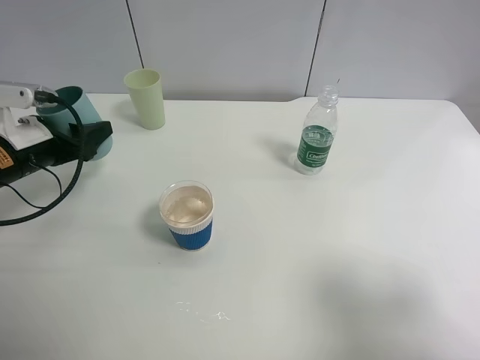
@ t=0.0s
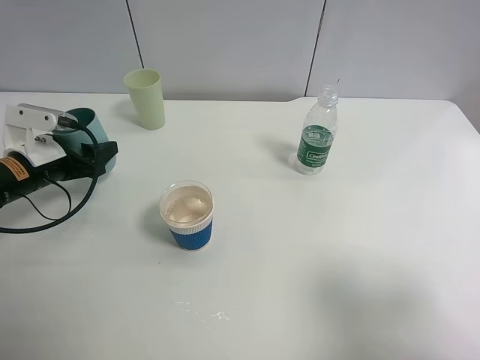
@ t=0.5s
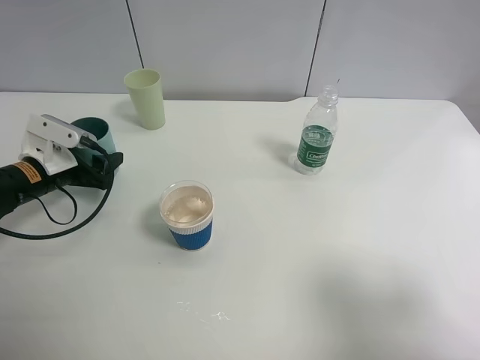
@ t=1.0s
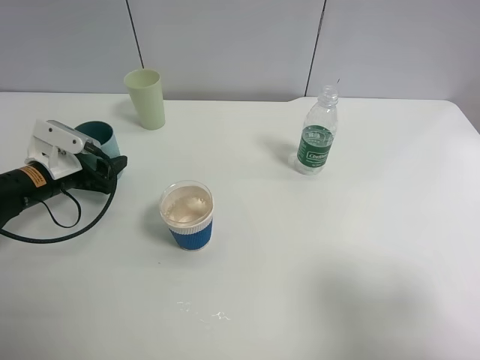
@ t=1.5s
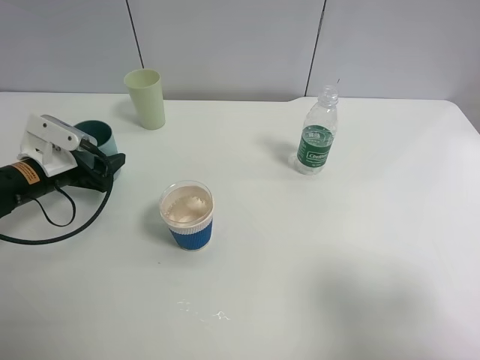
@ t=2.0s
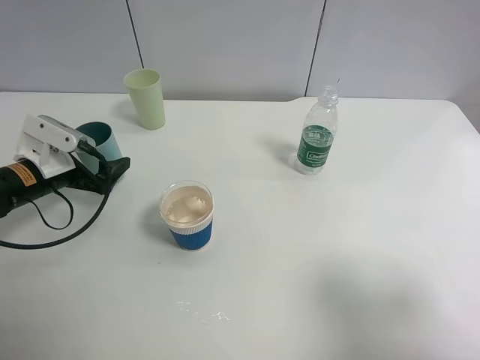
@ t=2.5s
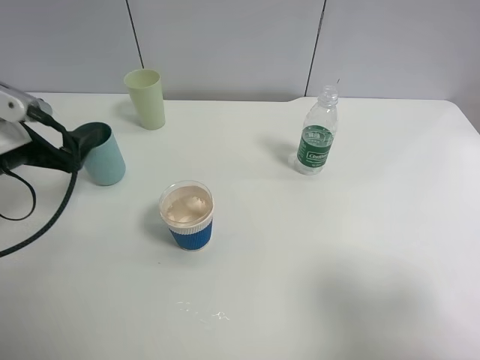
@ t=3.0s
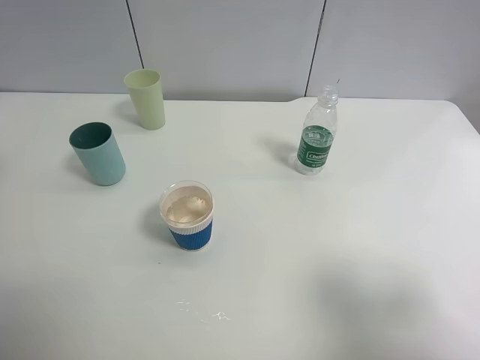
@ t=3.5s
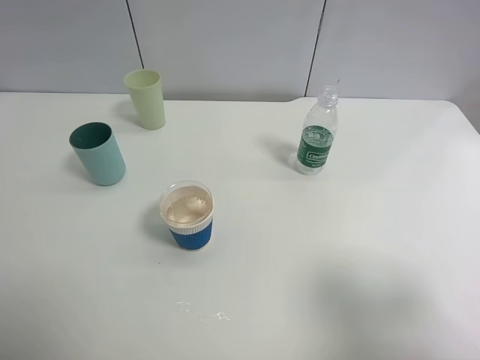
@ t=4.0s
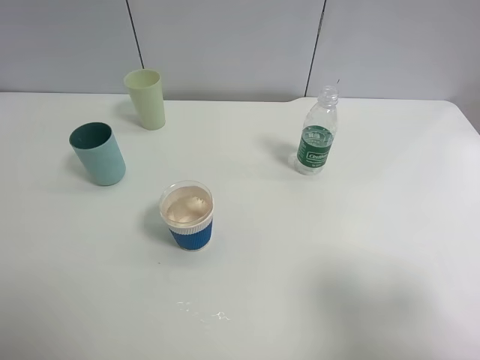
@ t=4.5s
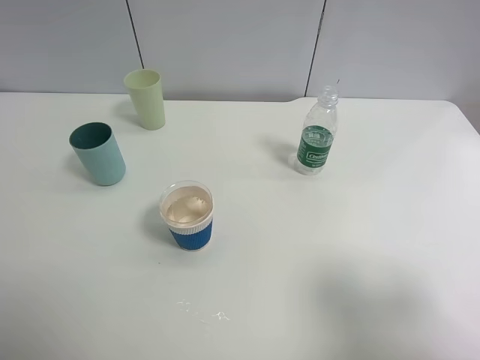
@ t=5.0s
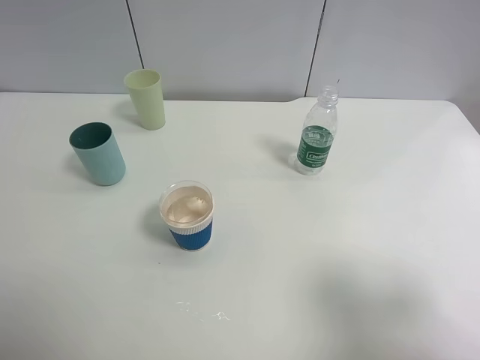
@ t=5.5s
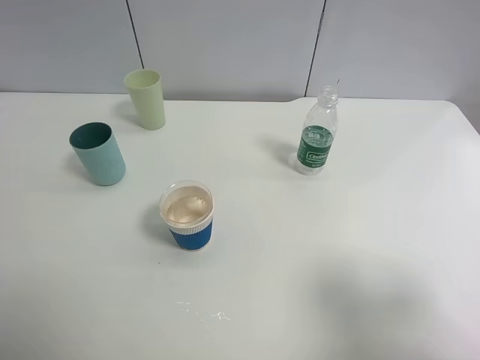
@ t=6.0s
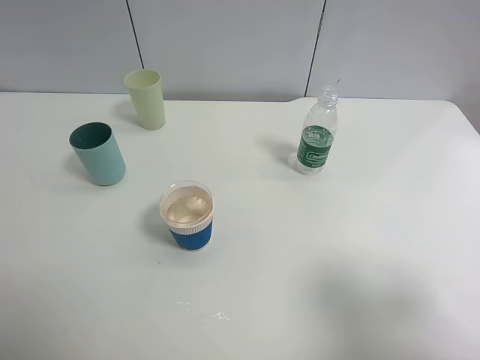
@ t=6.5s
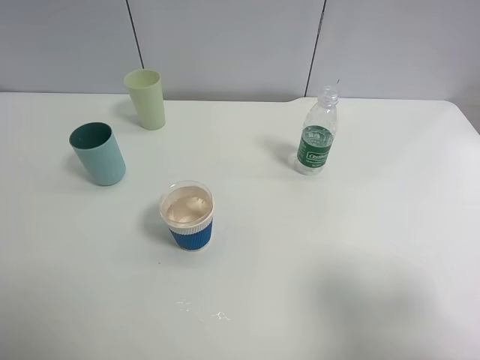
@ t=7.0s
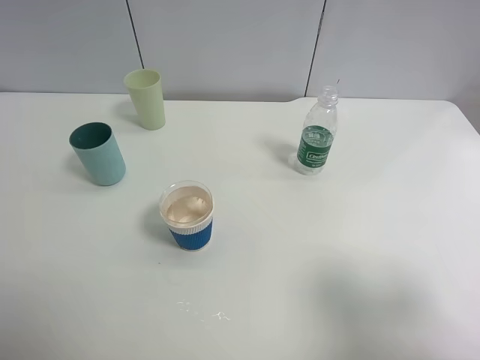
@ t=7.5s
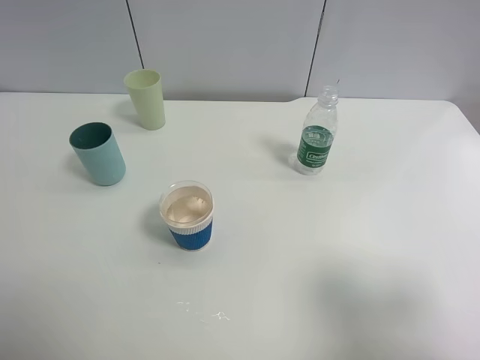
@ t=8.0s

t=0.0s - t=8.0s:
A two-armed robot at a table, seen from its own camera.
Task of the whole recording: use a clamp to hold the bottle of the drink, pour the beverage into a random cup, then clamp the cup containing the drink and pour the drink into another random cup.
Step, t=0.0s - t=2.5s: Place the blue plastic cup on the table with left gripper.
t=0.0s - t=2.0s: The left gripper is displaced downward by some 5 cm.
t=2.0s - t=4.0s: The left gripper is displaced upward and backward by some 35 cm, and opens up.
t=6.0s - t=8.0s: Neither gripper changes place.

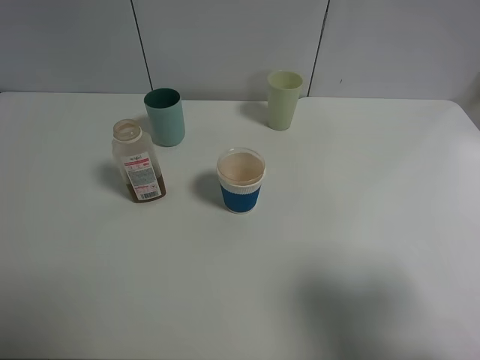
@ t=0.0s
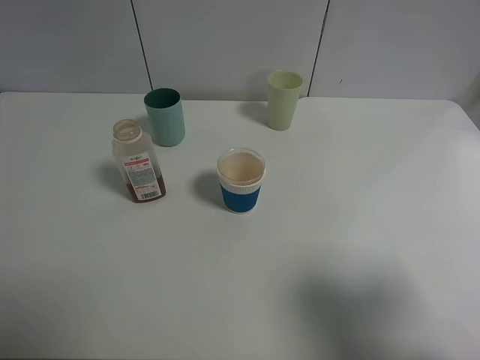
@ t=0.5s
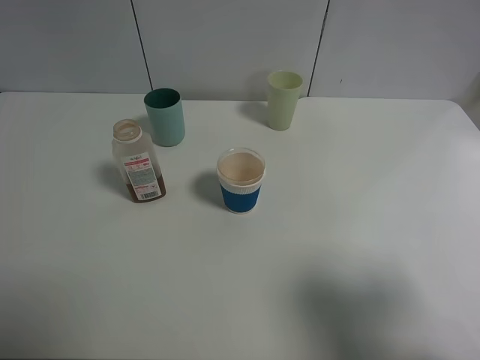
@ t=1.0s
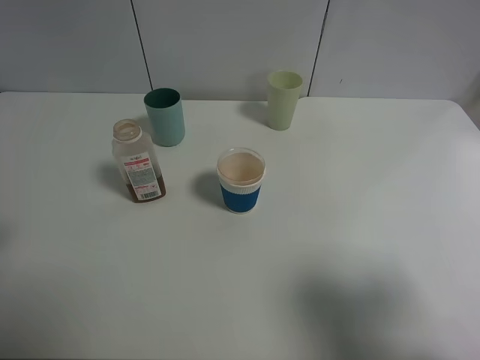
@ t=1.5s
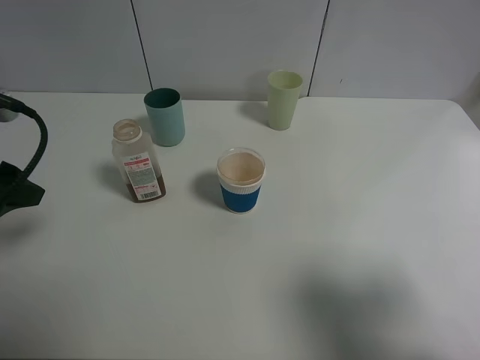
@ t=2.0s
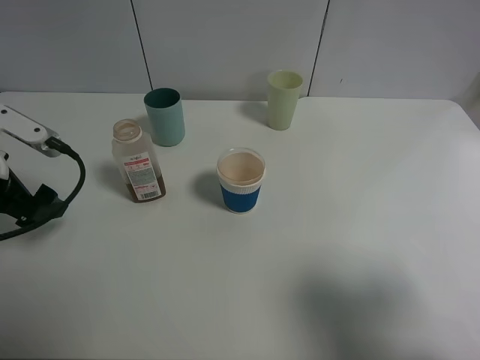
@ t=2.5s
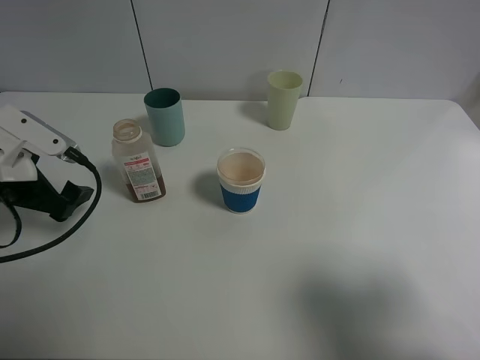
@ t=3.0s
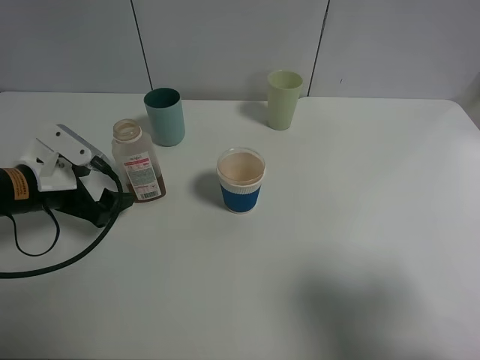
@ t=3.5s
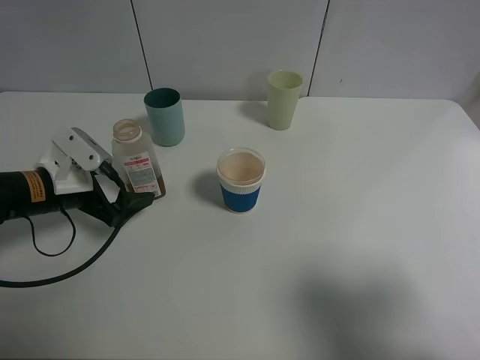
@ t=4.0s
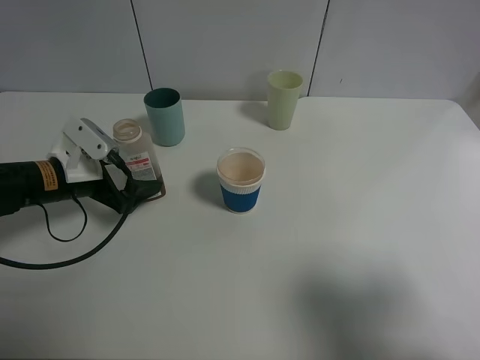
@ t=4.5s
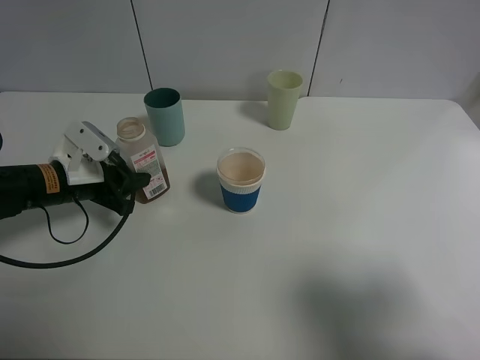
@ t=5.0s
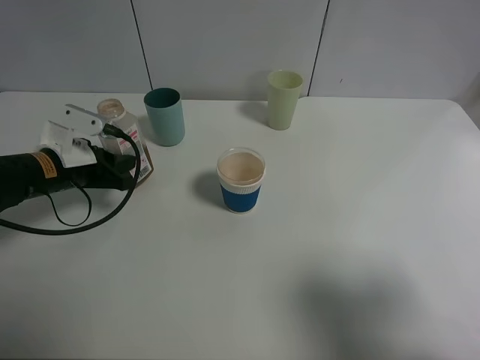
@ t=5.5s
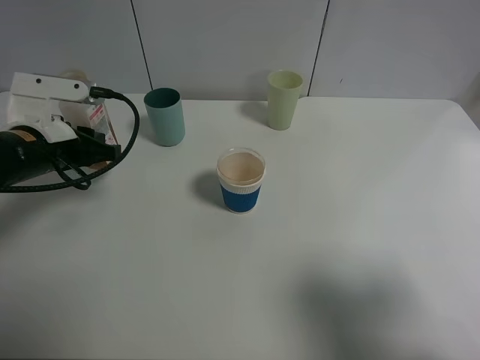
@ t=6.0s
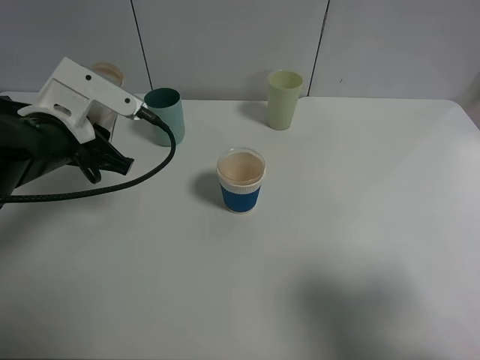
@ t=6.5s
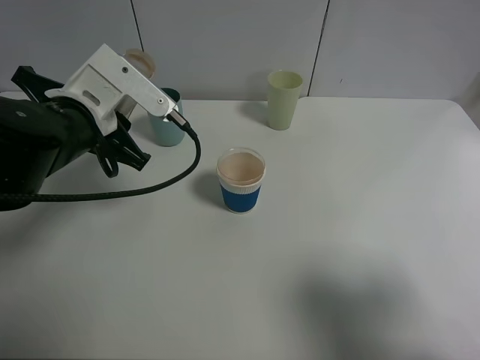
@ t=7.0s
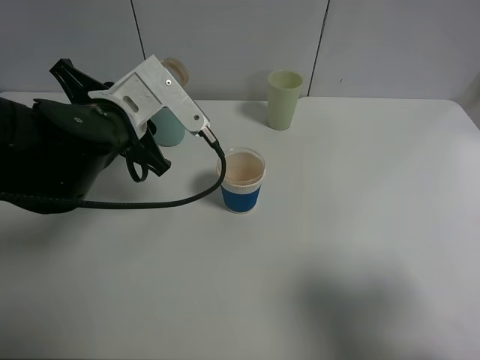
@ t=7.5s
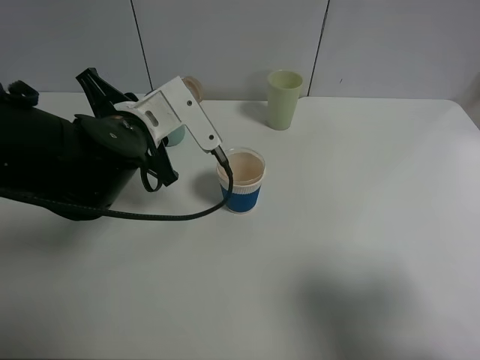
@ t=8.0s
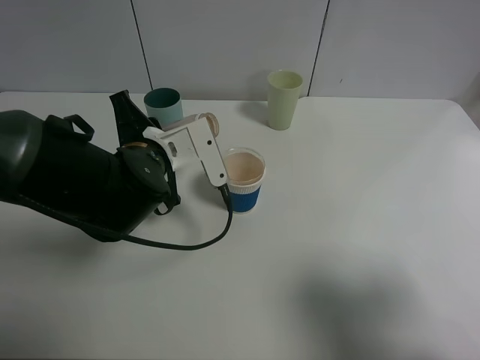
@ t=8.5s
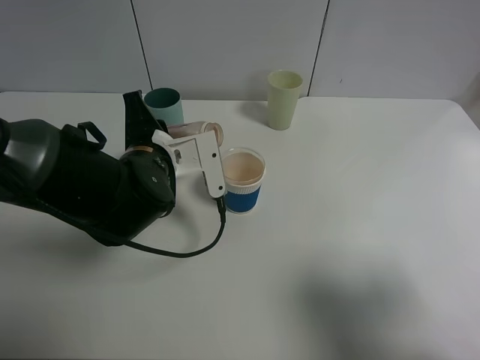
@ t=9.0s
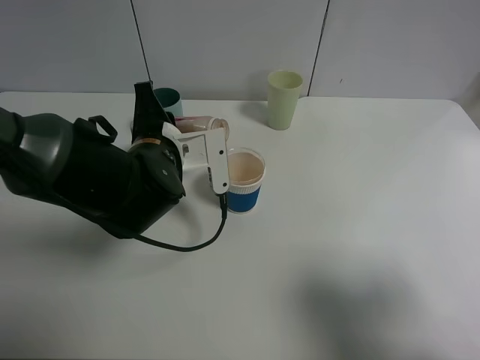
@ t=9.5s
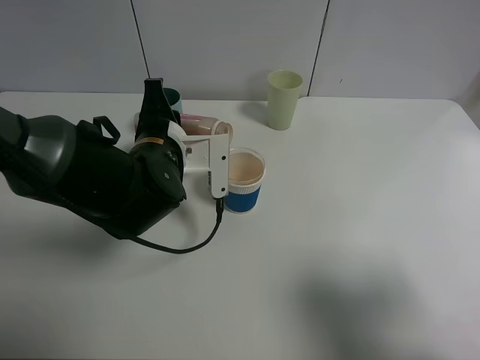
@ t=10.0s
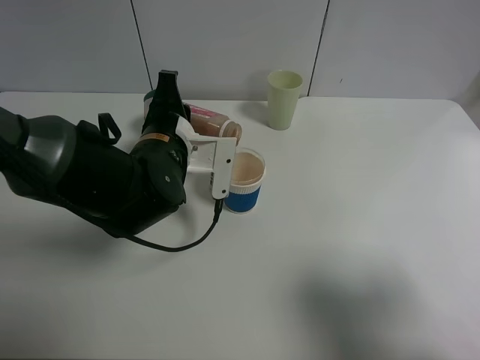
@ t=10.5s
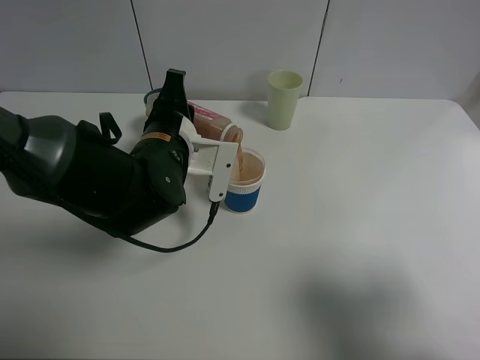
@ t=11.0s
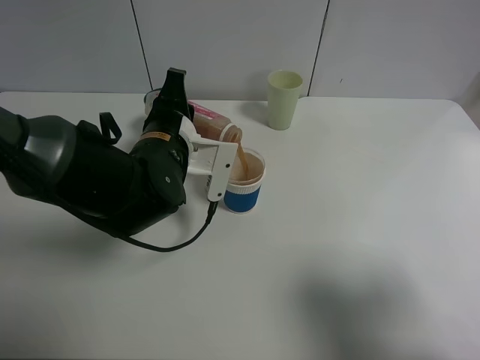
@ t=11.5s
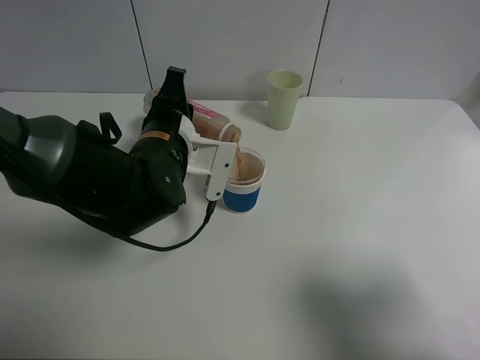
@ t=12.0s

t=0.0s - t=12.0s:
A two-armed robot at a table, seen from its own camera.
Task of the whole recording: use a clamp to hold the bottle of the drink, pour the beverage into a random cup, then clamp the cup containing the drink and pour the drink into another random cup.
t=0.0s - t=2.0s: The left gripper goes about 15 cm forward.
t=2.0s - t=4.0s: The left gripper is displaced downward and forward by about 15 cm.
t=4.0s - t=6.0s: The left gripper shifts approximately 5 cm upward, and closes.
t=6.0s - t=8.0s: The left gripper moves to the right, roughly 10 cm.
t=10.0s - t=12.0s: The grippers stay close to where they were, moving slightly.

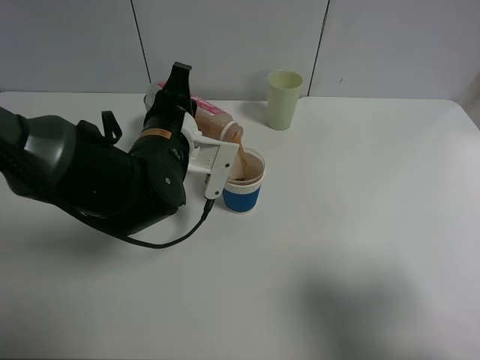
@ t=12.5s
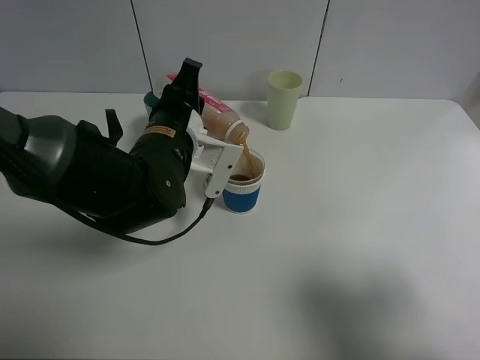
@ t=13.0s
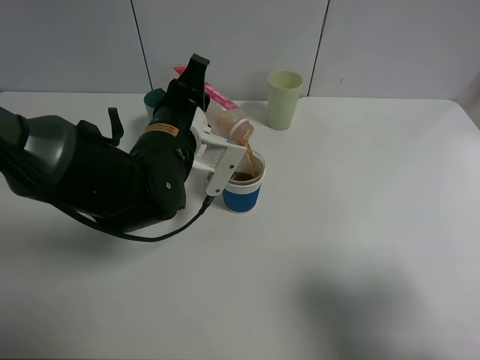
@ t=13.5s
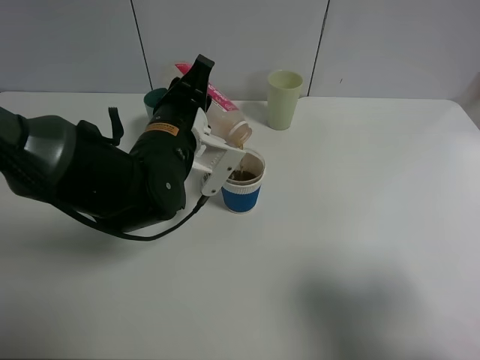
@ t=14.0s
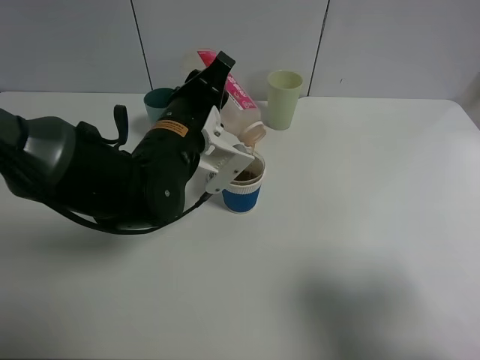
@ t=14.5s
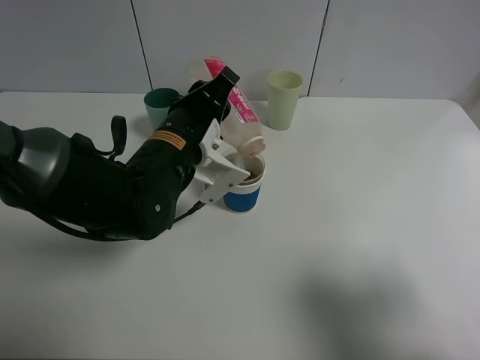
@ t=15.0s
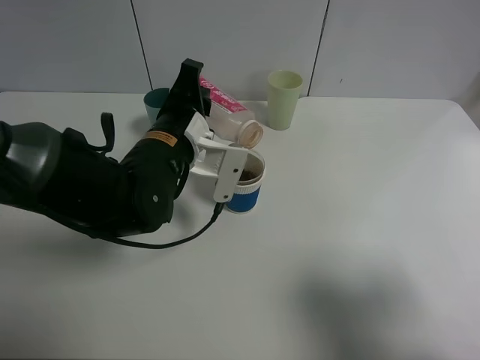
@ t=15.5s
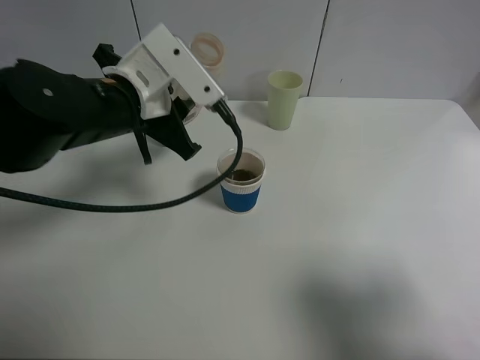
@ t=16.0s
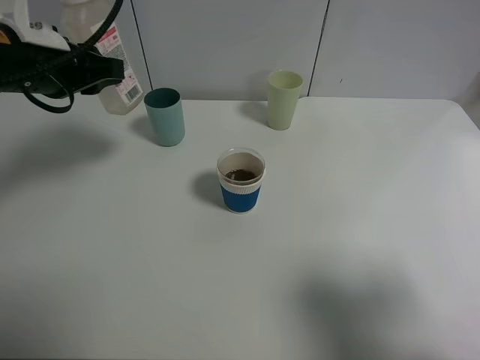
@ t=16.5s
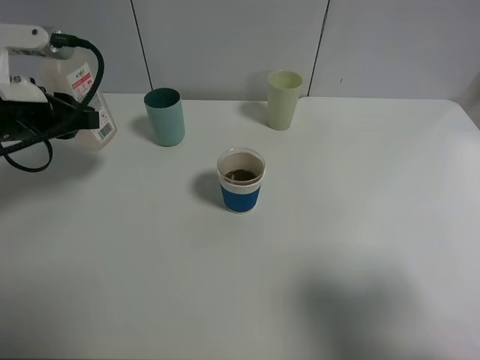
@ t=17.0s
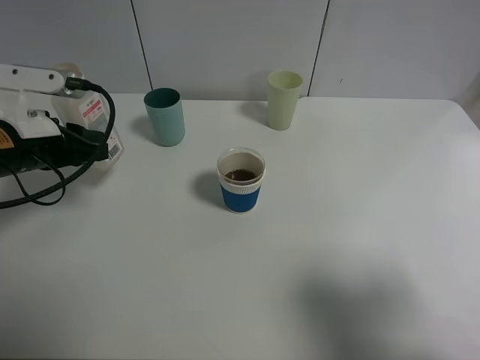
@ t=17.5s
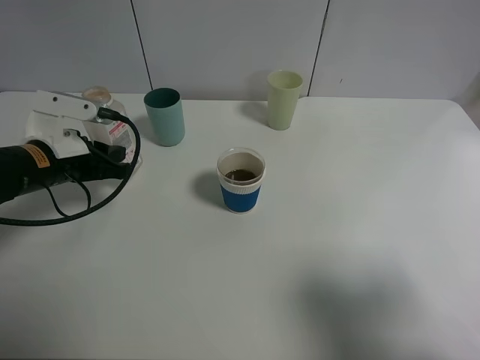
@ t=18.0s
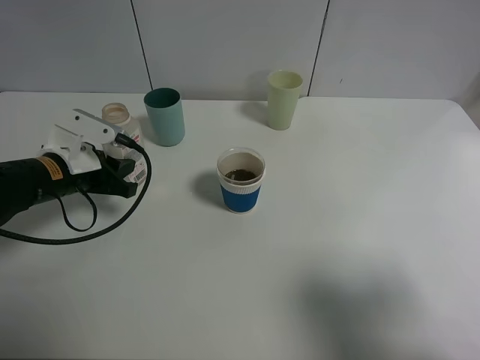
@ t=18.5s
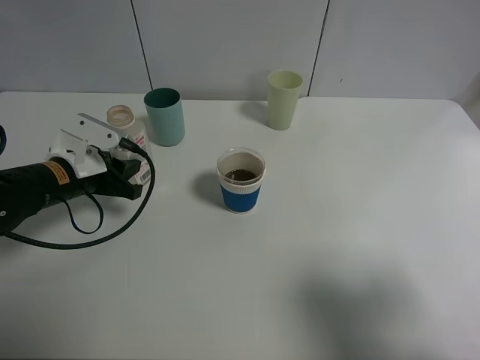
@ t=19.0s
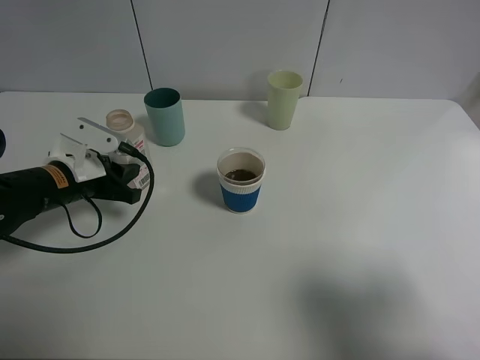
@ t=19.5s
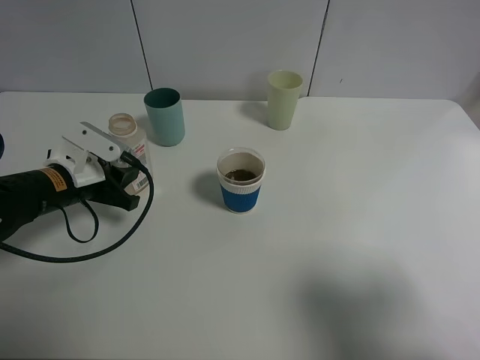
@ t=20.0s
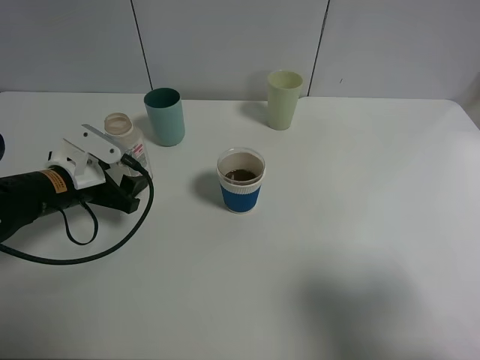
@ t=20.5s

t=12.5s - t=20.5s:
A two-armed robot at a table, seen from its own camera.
Task of the whole recording: use a clamp to hold the bottle of the drink, pour the beverage into a random cup, then clamp the cup containing the drink and pour the drink into another random cup.
Step, t=12.5s - t=16.0s: Pour the water into the blue plastic cup with left gripper.
t=14.5s - t=16.5s: The left gripper goes approximately 20 cm to the left and upward.
t=16.5s - t=18.5s: The left gripper moves downward, roughly 15 cm.
t=18.5s - t=20.5s: The left gripper opens up.
